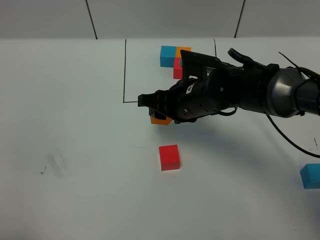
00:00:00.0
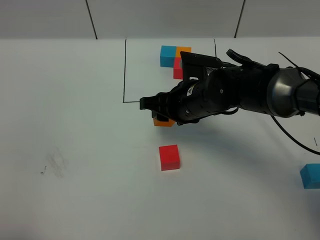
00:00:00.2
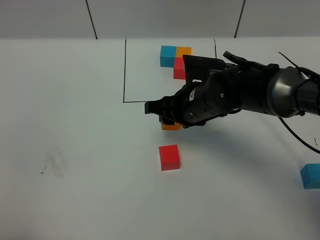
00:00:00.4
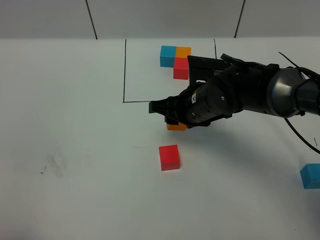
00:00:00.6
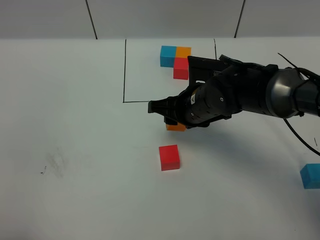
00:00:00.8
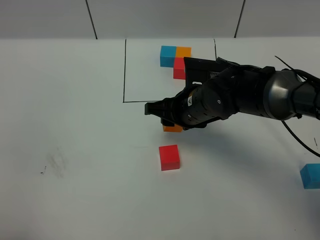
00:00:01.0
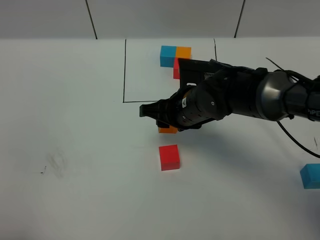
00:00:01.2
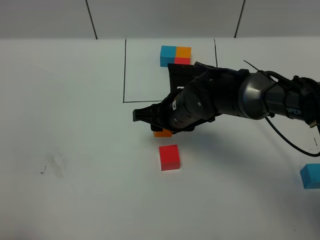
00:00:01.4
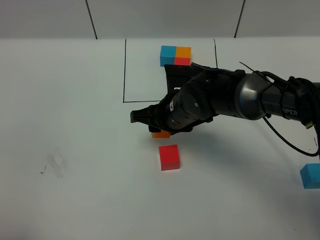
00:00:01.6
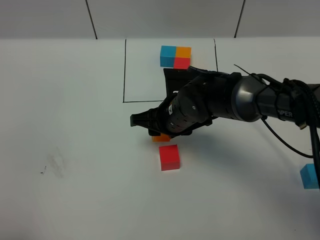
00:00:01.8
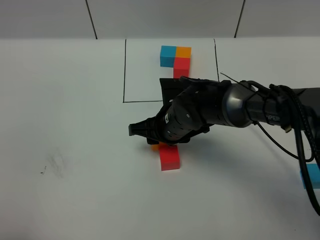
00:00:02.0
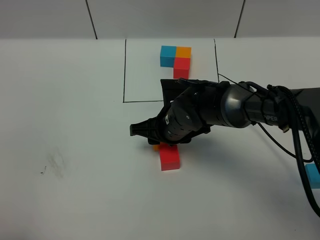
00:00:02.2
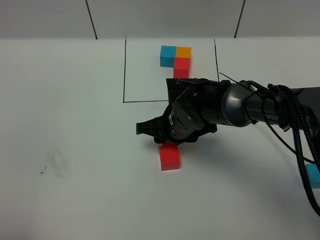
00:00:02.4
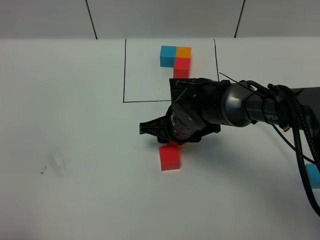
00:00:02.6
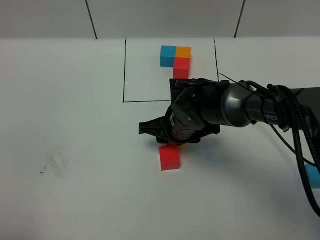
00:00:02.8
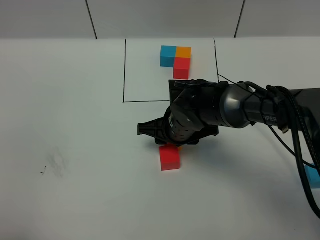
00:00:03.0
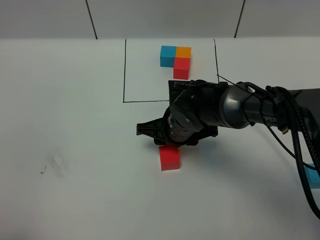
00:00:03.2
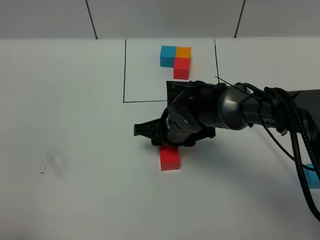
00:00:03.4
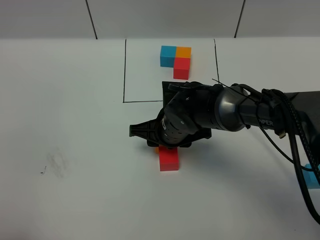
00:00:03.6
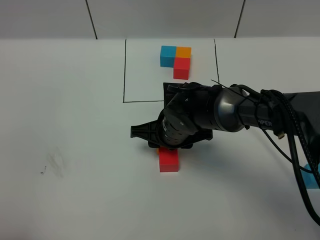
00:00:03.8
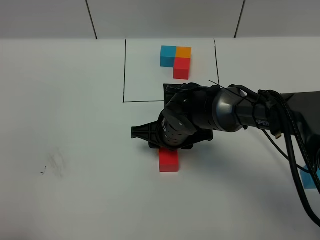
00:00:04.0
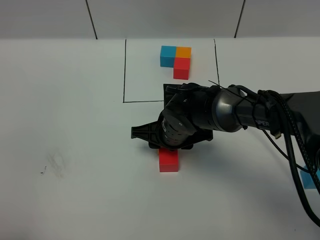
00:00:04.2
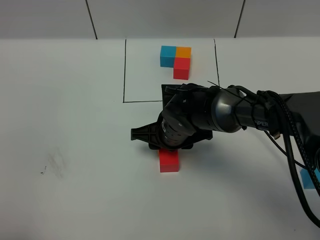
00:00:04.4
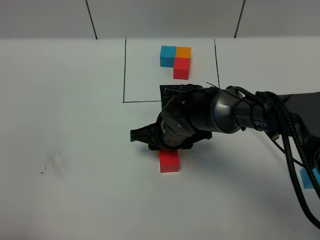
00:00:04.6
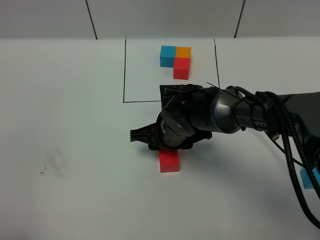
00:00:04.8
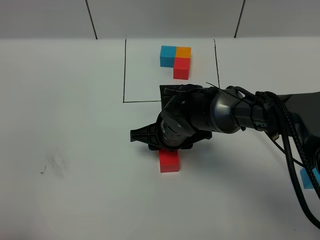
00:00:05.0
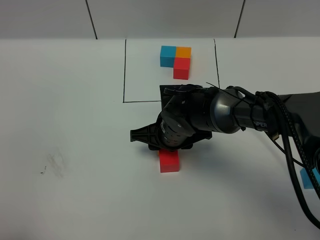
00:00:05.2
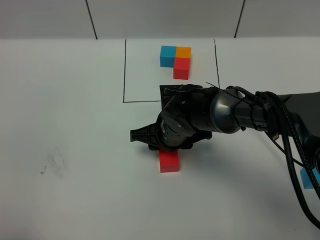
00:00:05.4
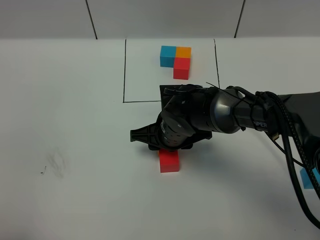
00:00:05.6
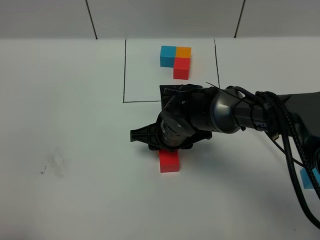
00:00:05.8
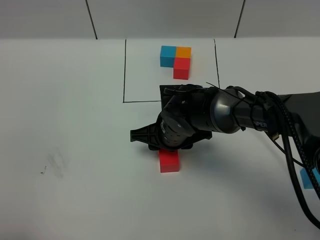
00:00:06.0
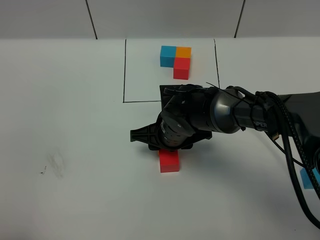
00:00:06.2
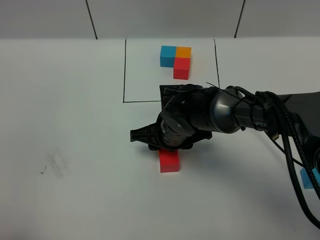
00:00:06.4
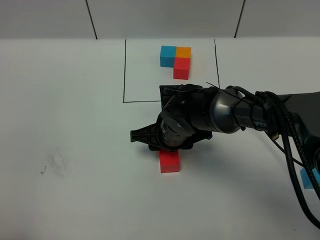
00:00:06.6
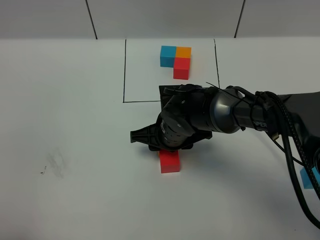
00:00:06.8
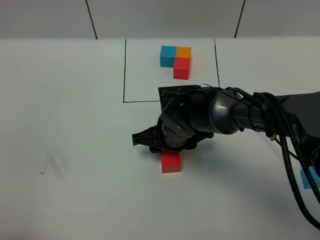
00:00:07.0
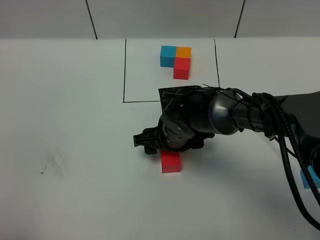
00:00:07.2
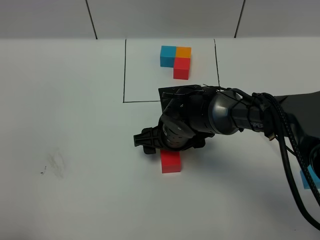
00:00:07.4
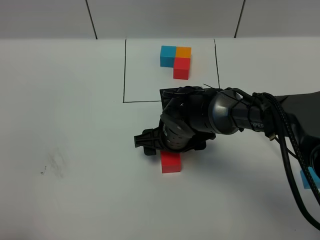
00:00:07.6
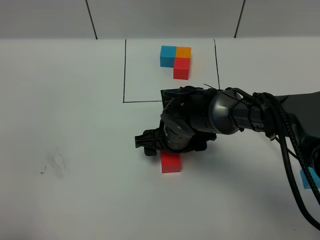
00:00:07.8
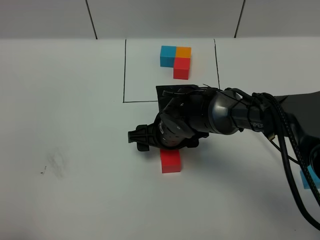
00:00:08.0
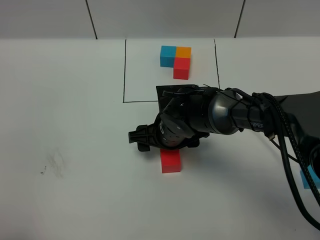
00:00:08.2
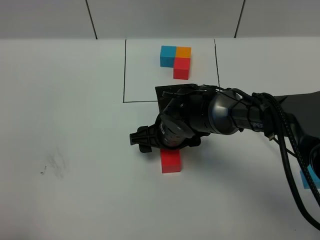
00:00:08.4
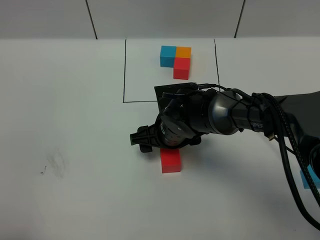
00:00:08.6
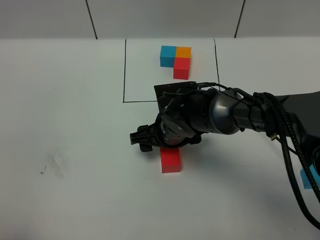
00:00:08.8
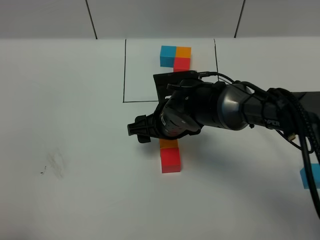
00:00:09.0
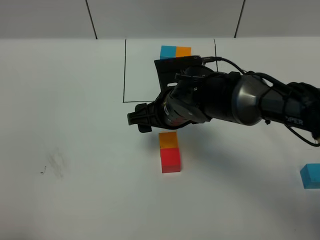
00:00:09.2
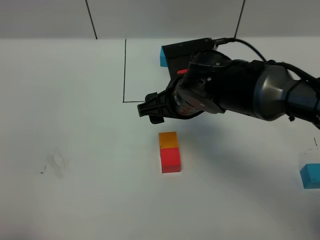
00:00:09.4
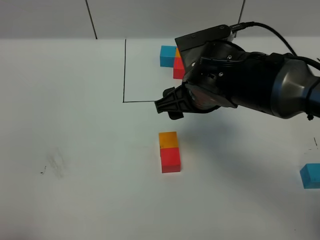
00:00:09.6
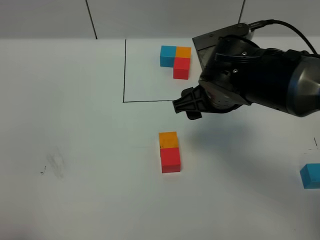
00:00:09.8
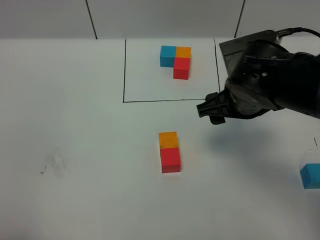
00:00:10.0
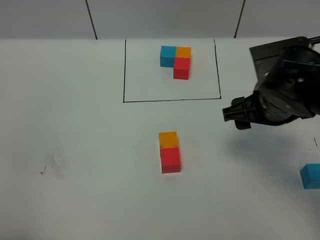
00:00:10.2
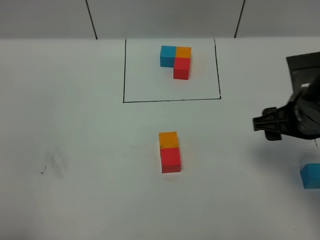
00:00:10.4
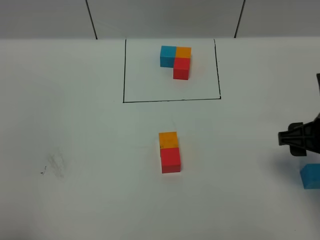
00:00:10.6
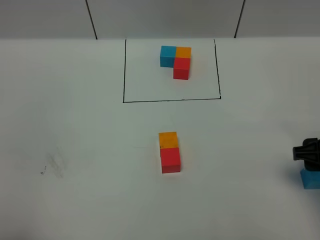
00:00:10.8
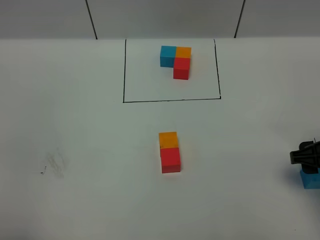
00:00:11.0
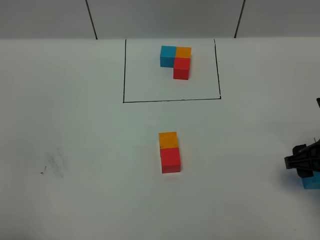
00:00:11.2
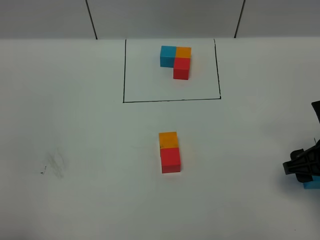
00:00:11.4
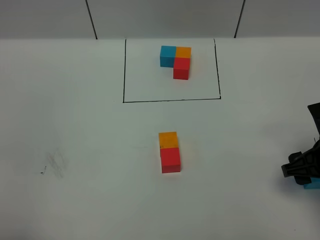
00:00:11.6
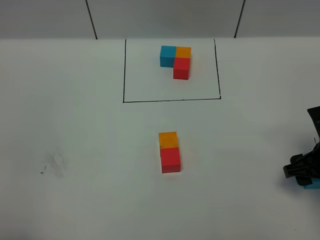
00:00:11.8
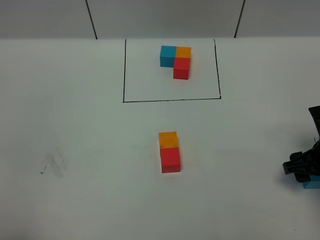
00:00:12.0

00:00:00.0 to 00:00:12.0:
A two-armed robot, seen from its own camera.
Task of the whole recording: According to the building block template in front, assemble the scattered blocks together.
Step, 00:00:00.0 to 00:00:09.8: Put the orange cube in the front of the red cube.
00:00:00.0 to 00:00:01.6: There are only small adjustments of the grippers.
00:00:01.6 to 00:00:04.4: The grippers make only small movements.
00:00:04.4 to 00:00:06.0: Both grippers stay put.
00:00:06.0 to 00:00:07.6: The right gripper opens its fingers.
00:00:07.6 to 00:00:09.0: There are only small adjustments of the grippers.
00:00:09.0 to 00:00:10.4: The right gripper moves to the right, some 20 cm.
00:00:10.4 to 00:00:12.0: The right gripper goes approximately 10 cm downward and to the right.

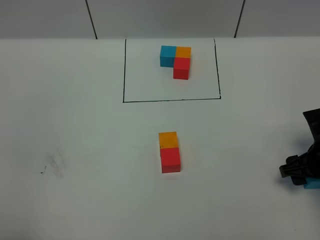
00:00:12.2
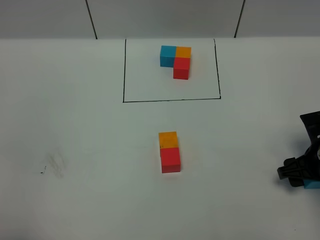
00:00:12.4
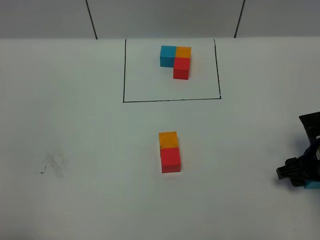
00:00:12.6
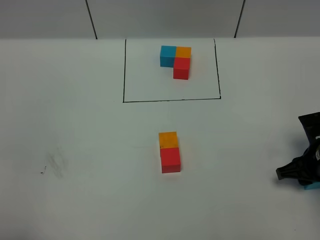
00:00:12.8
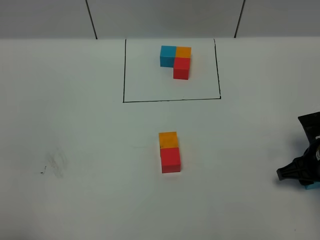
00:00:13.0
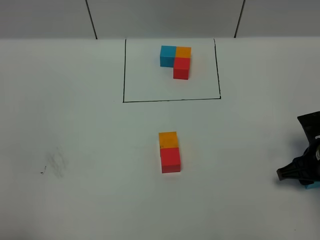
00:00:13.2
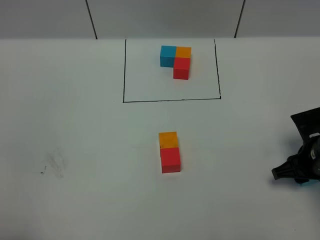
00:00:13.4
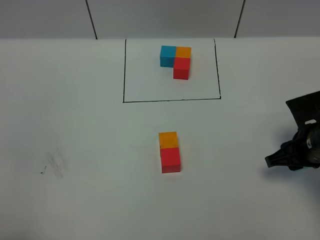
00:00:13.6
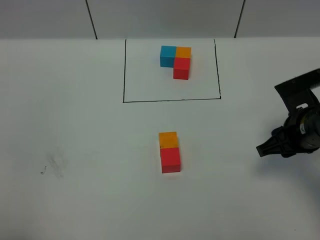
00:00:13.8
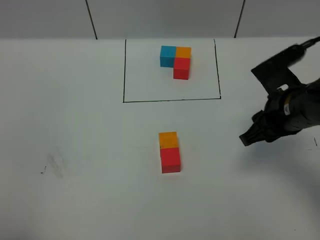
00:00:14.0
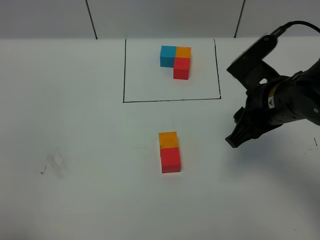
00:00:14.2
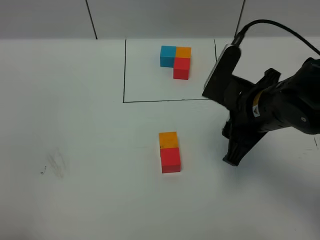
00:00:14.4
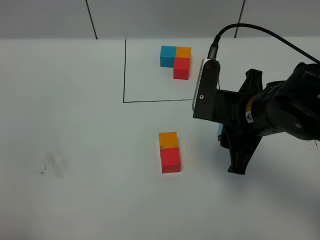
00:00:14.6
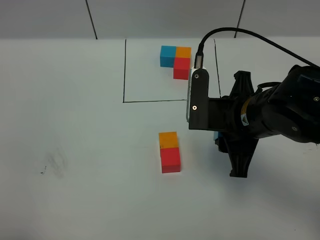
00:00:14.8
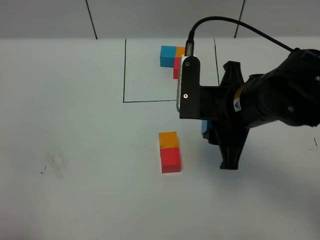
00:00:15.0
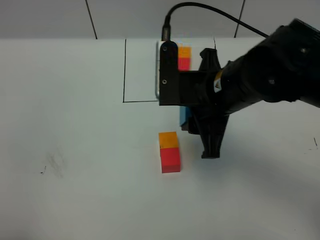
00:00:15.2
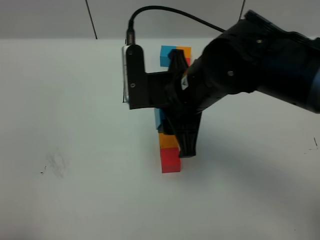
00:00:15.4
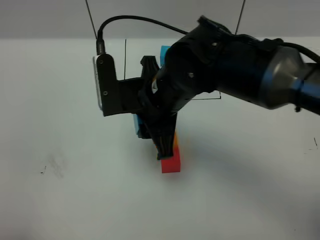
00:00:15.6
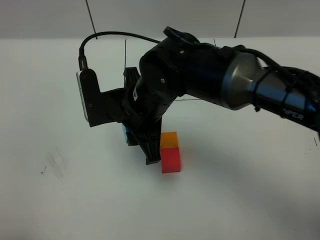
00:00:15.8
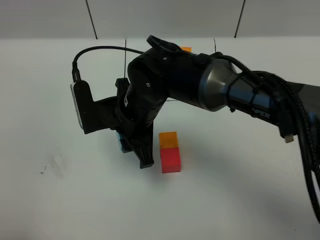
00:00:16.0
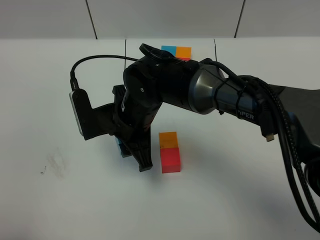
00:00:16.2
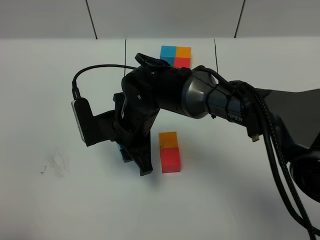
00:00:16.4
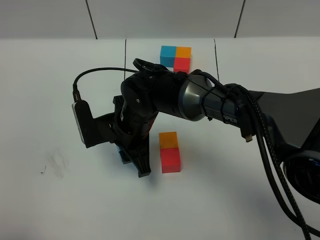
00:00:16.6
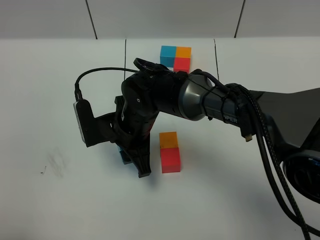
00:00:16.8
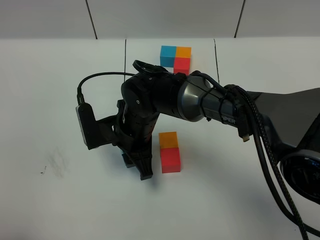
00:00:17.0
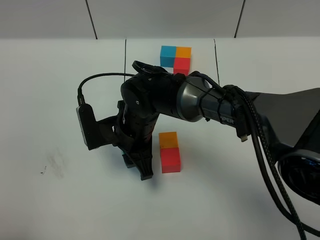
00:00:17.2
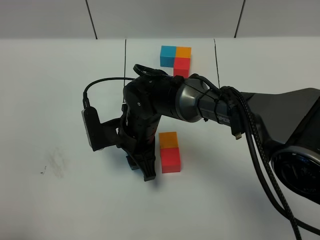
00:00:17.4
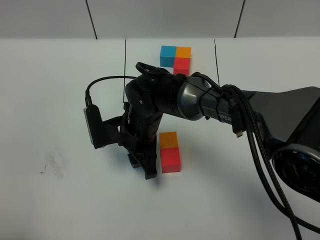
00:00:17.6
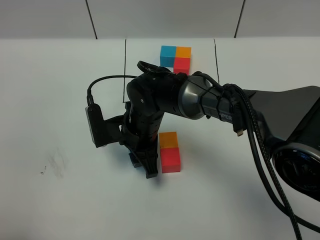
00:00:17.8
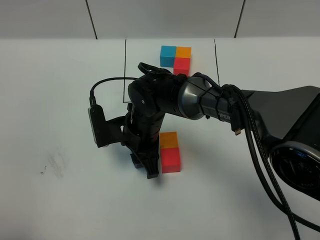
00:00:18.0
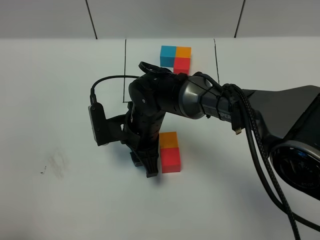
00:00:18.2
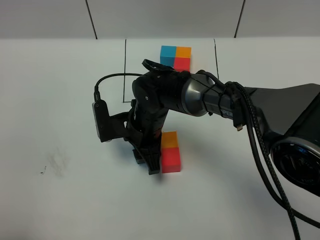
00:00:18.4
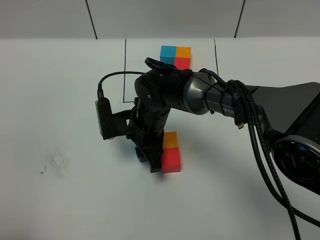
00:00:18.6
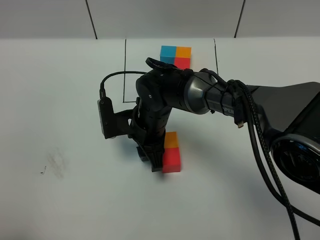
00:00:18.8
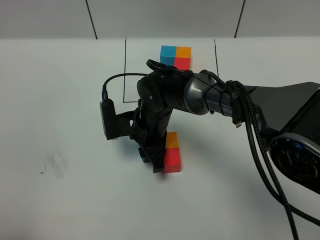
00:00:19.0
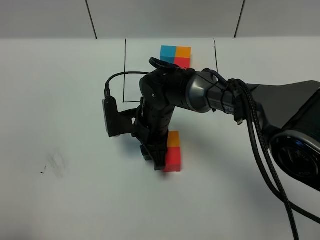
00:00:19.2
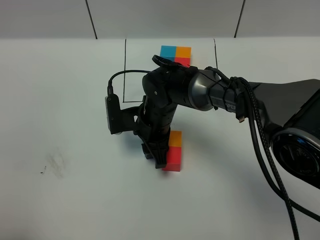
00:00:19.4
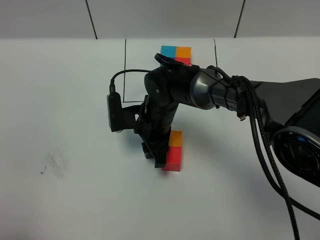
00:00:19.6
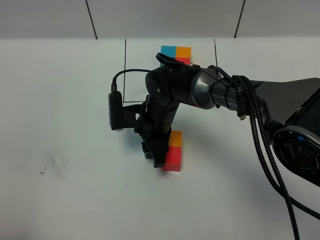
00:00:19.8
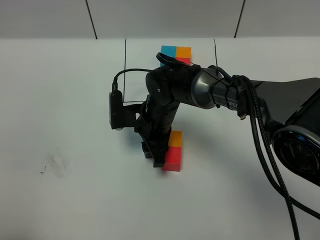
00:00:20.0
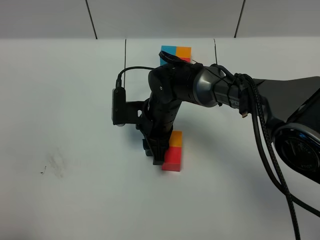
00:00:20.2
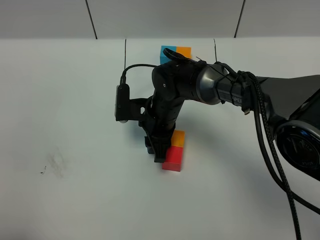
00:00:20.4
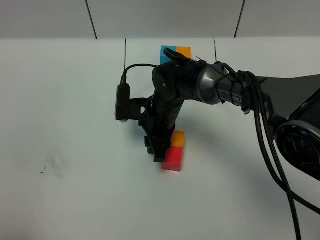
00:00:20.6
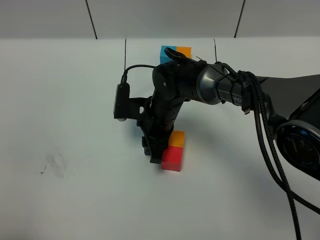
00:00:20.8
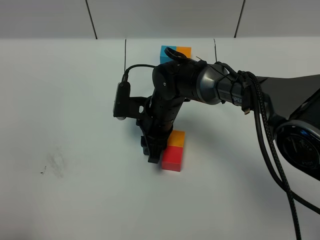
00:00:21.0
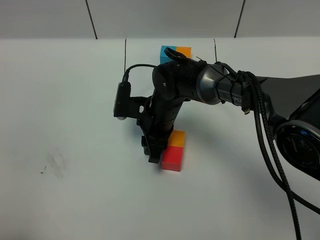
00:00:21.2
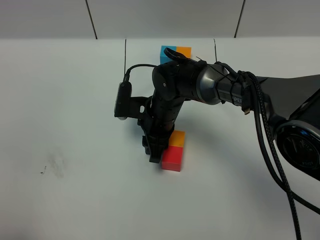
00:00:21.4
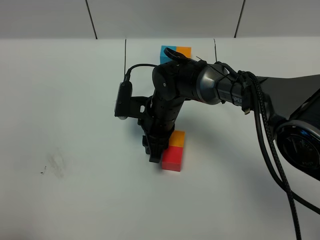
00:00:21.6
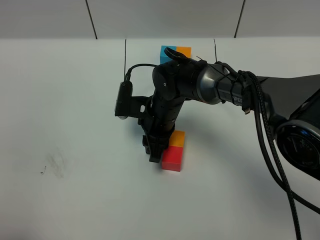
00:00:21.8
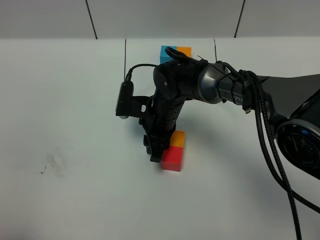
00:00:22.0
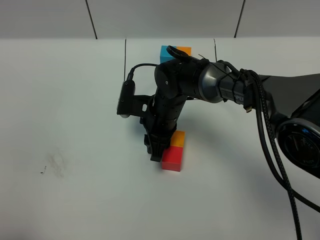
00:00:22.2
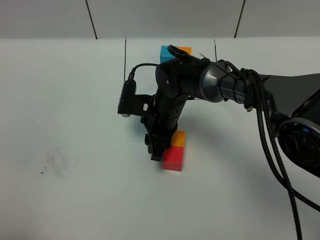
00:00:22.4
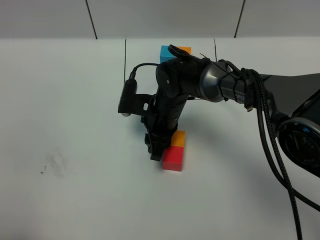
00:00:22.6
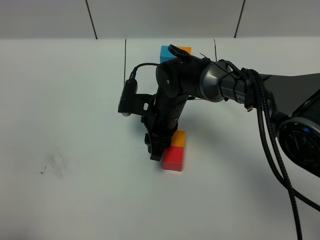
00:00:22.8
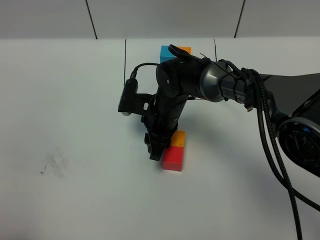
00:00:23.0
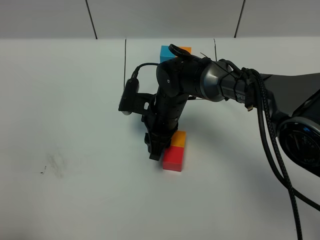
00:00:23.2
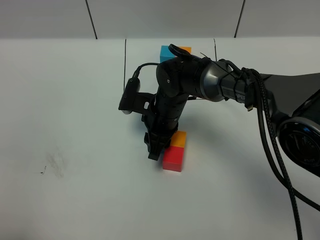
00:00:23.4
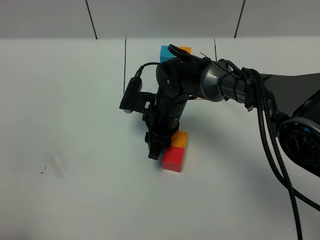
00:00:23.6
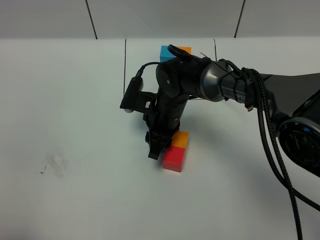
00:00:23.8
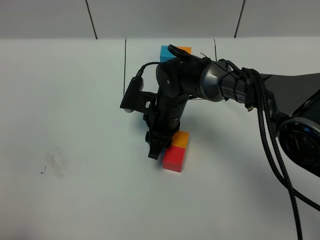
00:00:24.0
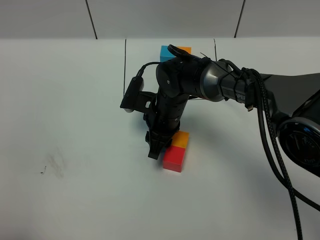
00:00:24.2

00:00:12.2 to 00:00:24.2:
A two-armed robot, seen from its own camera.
Task of the whole recording: According to the building block template in front, assemble the scattered blocks together.
00:00:12.2 to 00:00:13.8: The right gripper travels upward and to the left by some 10 cm, and closes up.
00:00:13.8 to 00:00:15.2: The right gripper is displaced to the left and upward by about 15 cm.
00:00:15.2 to 00:00:16.6: The right gripper shifts some 20 cm to the left and downward.
00:00:16.6 to 00:00:18.2: There are only small adjustments of the grippers.
00:00:18.2 to 00:00:19.8: The grippers stay close to where they were, moving slightly.
00:00:19.8 to 00:00:21.2: There are only small adjustments of the grippers.
00:00:21.2 to 00:00:22.6: Neither gripper changes place.
00:00:22.6 to 00:00:24.2: The grippers stay close to where they were, moving slightly.
